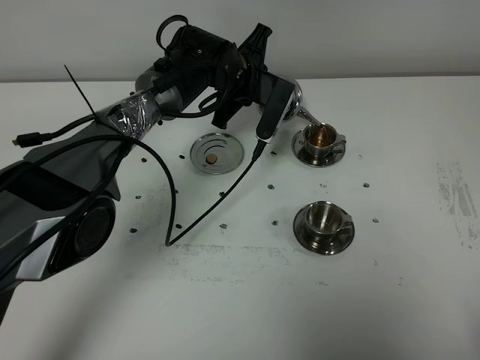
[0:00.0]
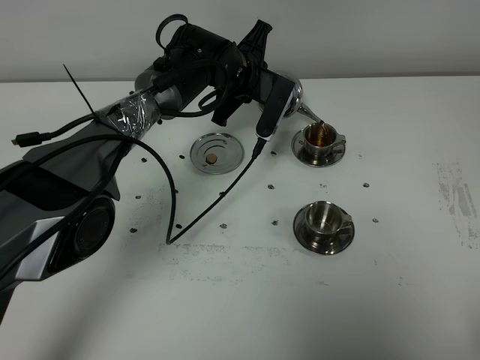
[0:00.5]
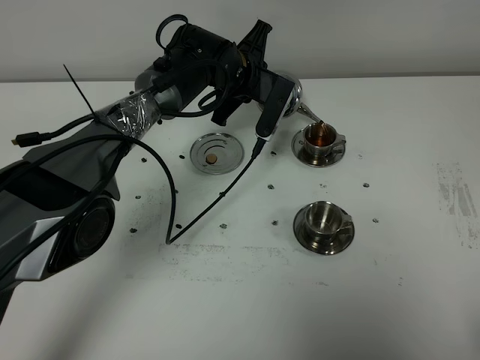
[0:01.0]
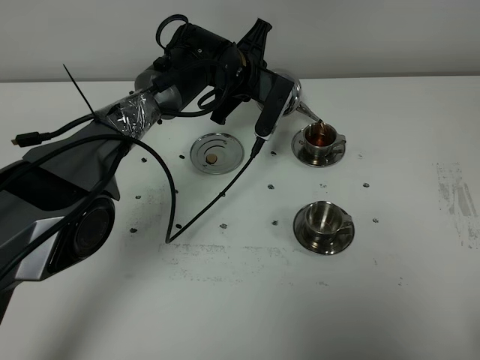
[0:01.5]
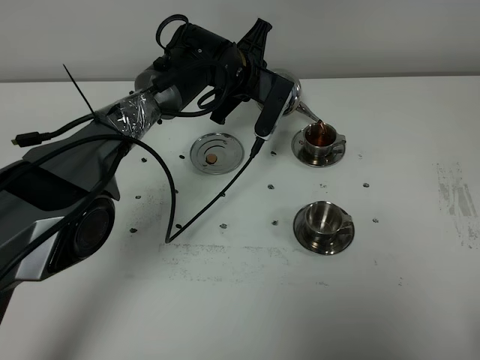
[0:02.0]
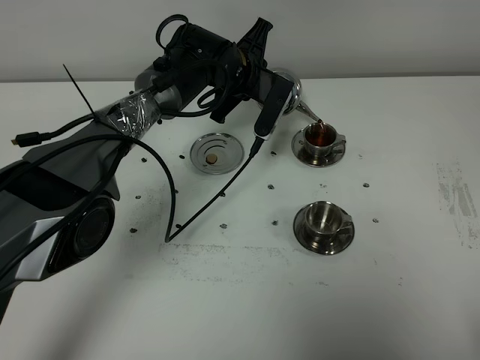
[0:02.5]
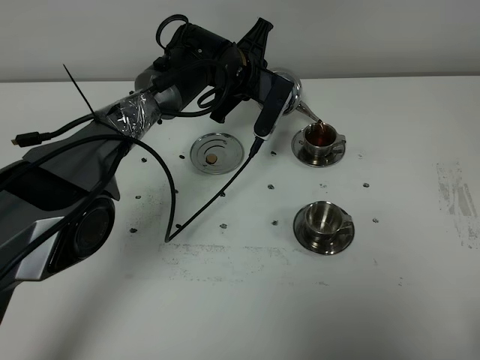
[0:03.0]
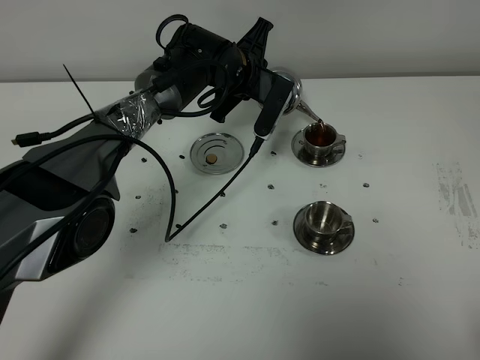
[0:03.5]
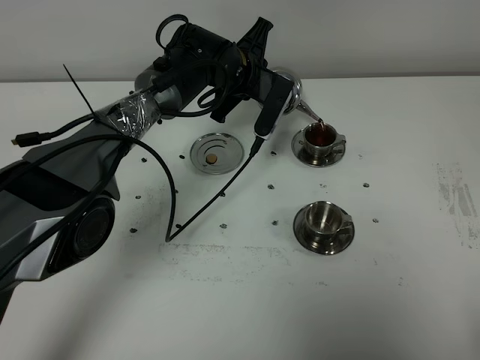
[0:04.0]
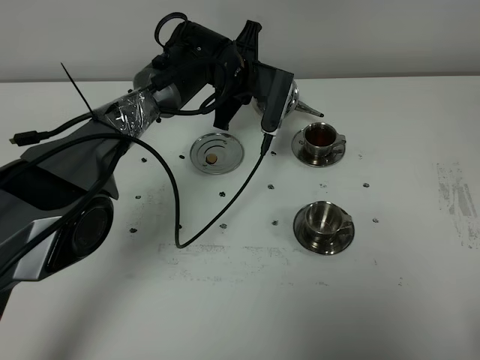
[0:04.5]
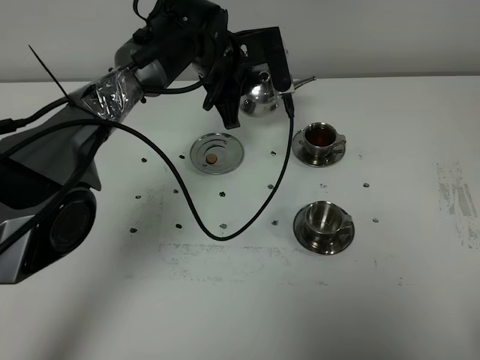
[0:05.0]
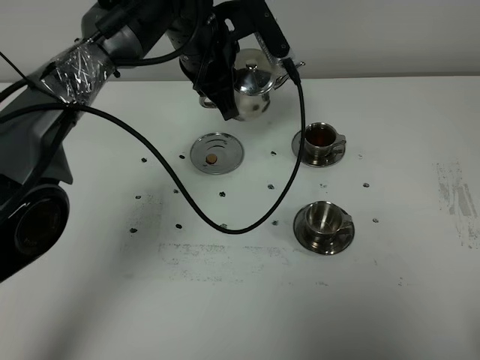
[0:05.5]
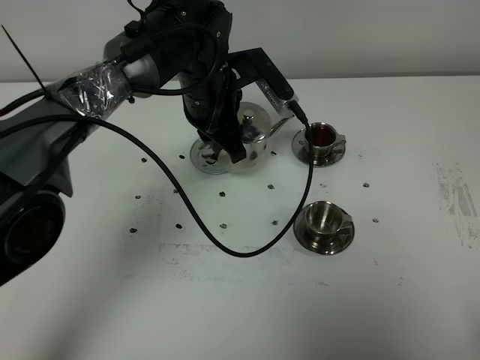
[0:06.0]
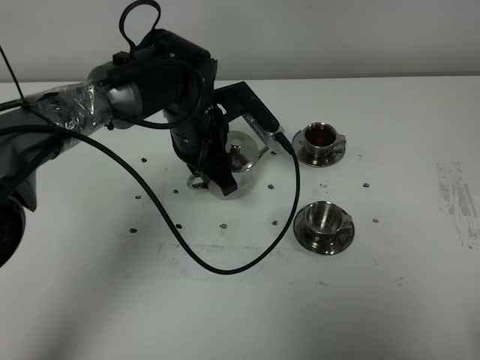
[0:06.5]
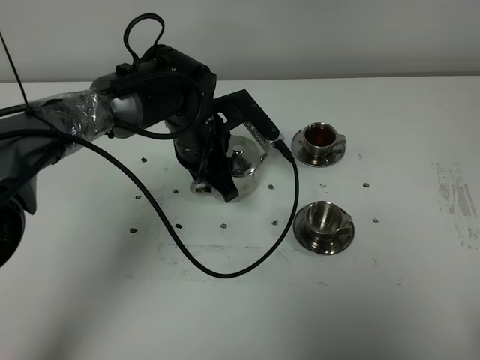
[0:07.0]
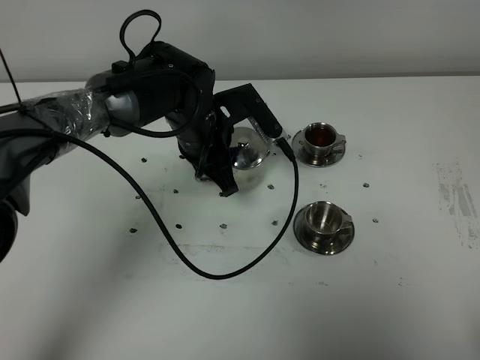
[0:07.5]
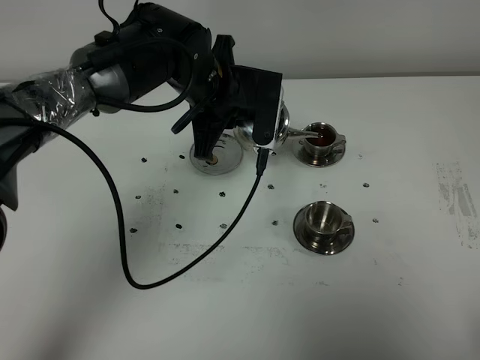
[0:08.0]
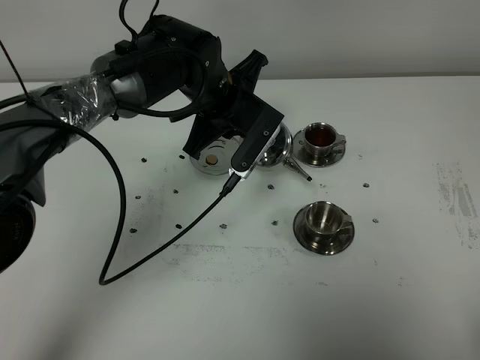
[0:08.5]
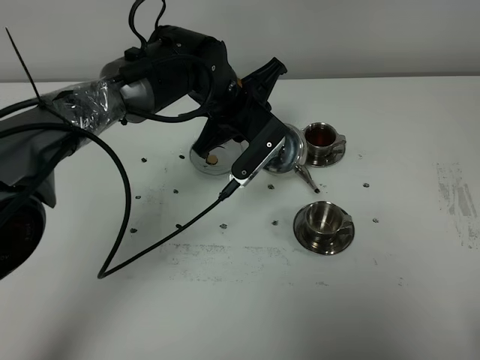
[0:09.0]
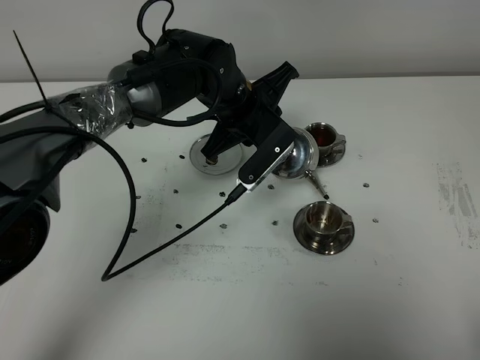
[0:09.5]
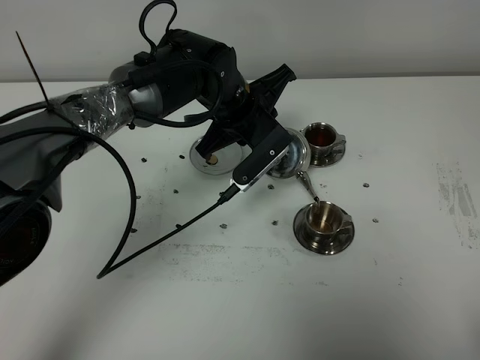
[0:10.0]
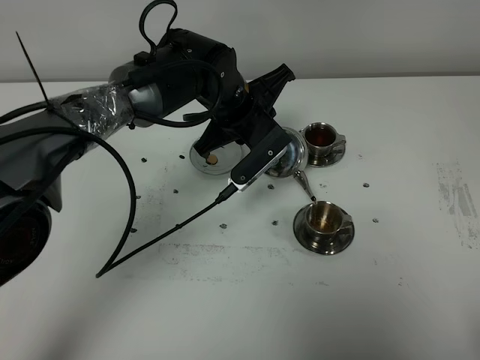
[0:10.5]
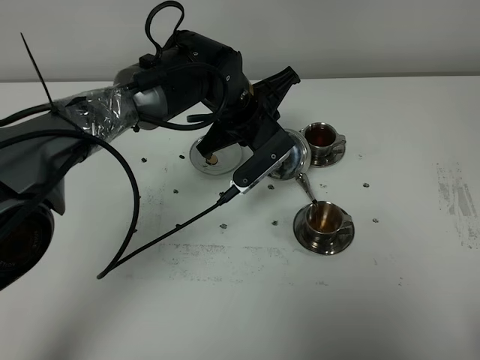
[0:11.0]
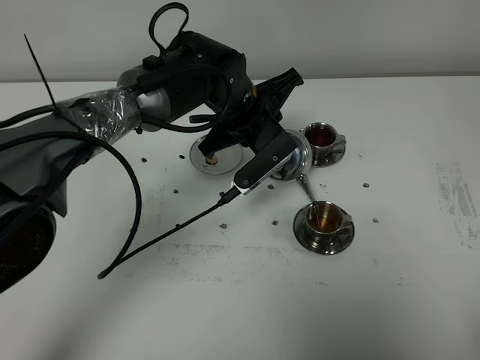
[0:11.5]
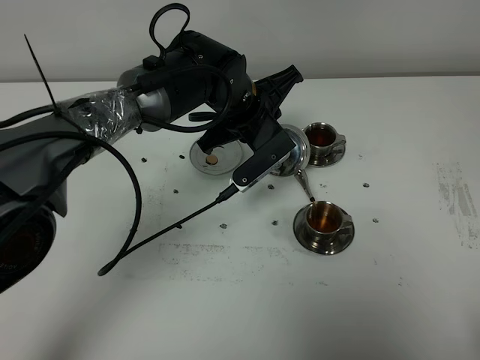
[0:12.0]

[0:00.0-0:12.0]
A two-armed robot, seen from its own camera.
Task of the whole recording: grasp the stainless steel teapot and pour the tea into the two stainless steel teacups one by one, put the stainless steel teapot back in its original place.
Step, 0:00.0 to 0:04.5: Pour tea into the teacup with the left gripper.
0:00.0 to 0:04.0: Both grippers stay about where they are.
0:04.0 to 0:06.0: The left gripper shifts some 10 cm backward.
0:10.0 to 0:12.0: There are only small adjustments of the grippers.

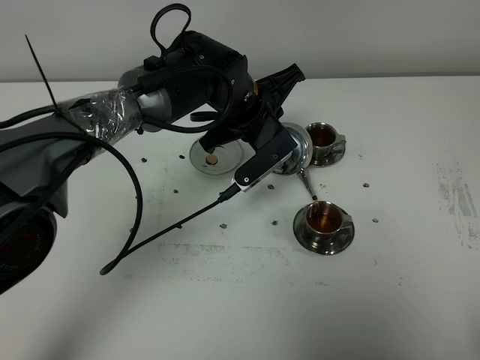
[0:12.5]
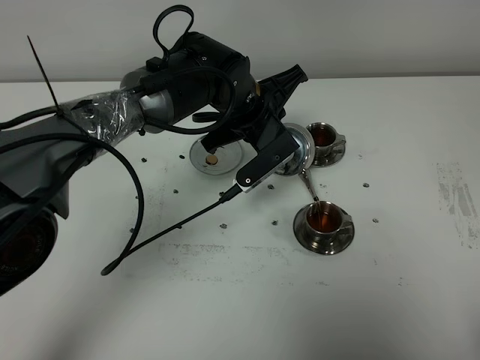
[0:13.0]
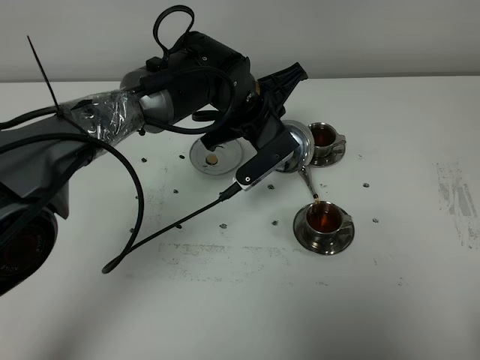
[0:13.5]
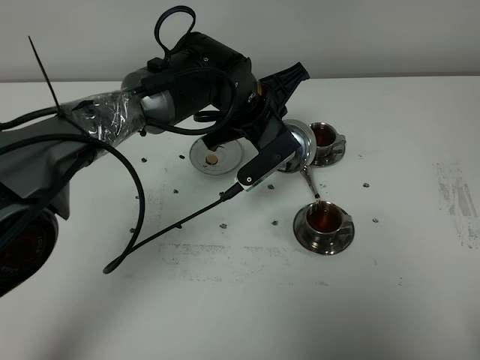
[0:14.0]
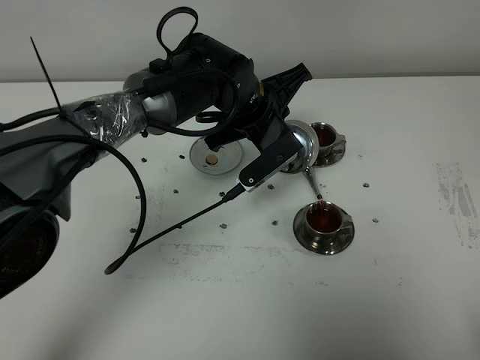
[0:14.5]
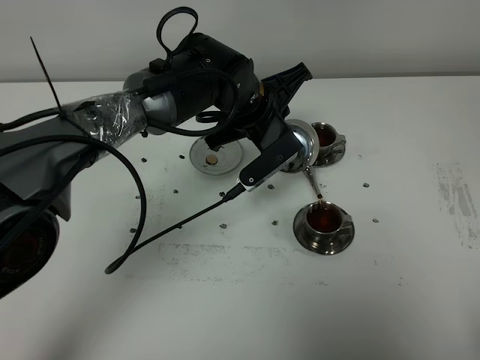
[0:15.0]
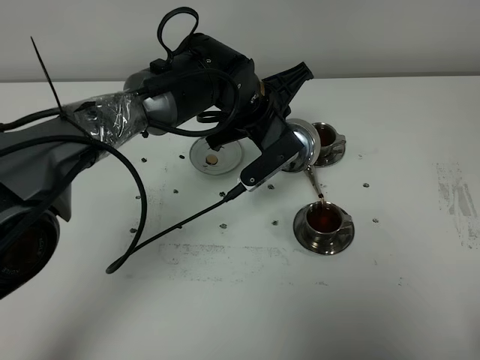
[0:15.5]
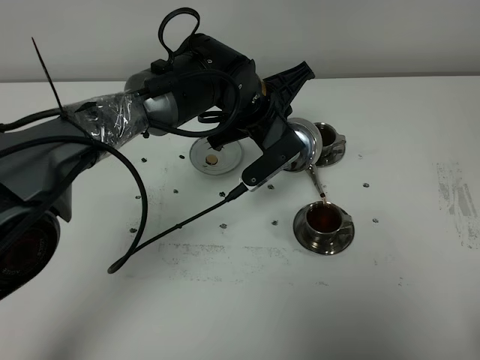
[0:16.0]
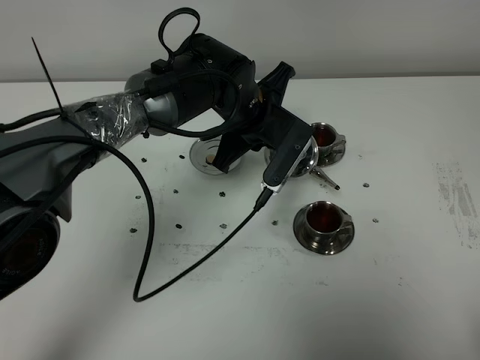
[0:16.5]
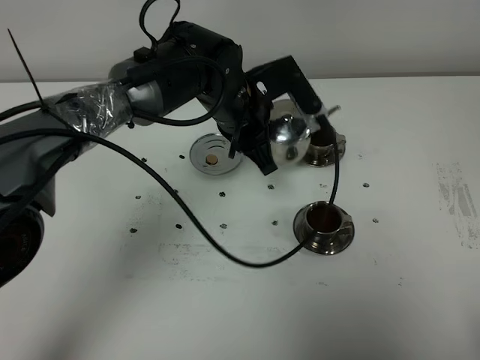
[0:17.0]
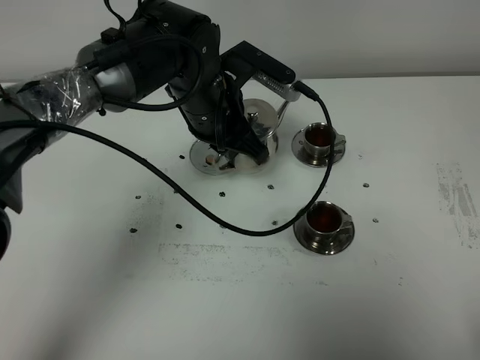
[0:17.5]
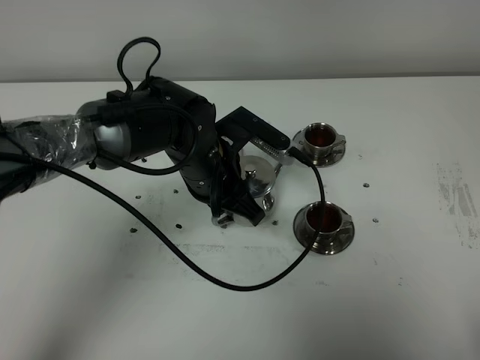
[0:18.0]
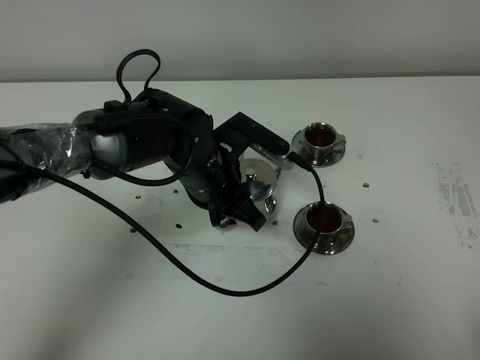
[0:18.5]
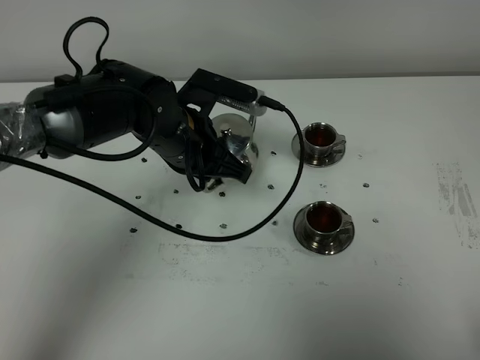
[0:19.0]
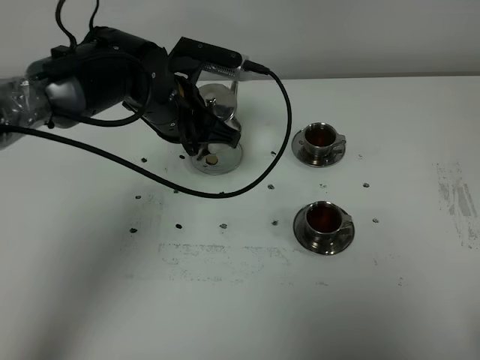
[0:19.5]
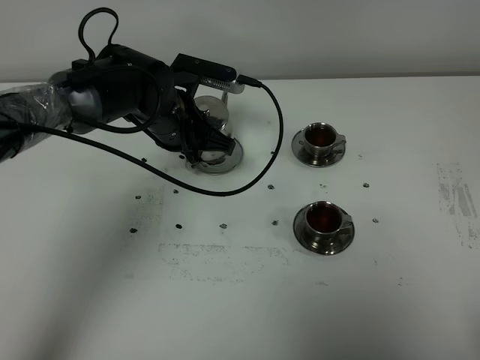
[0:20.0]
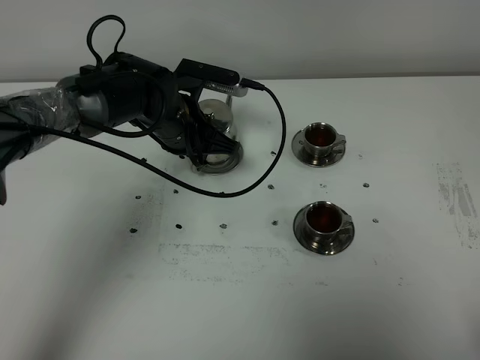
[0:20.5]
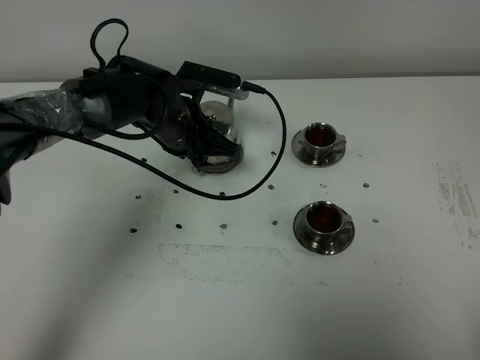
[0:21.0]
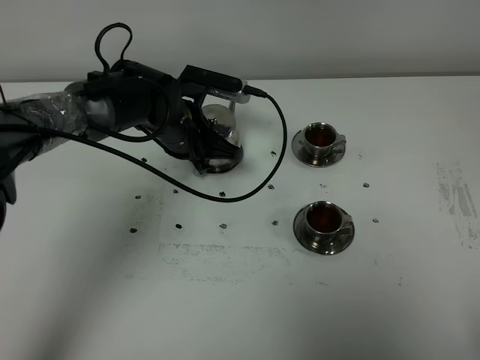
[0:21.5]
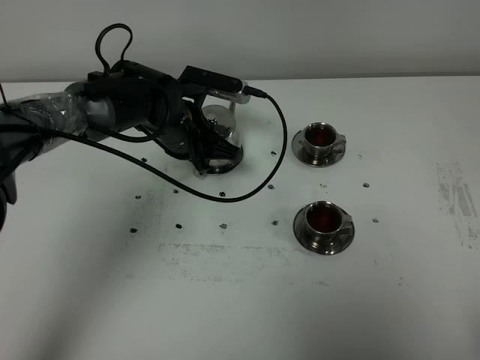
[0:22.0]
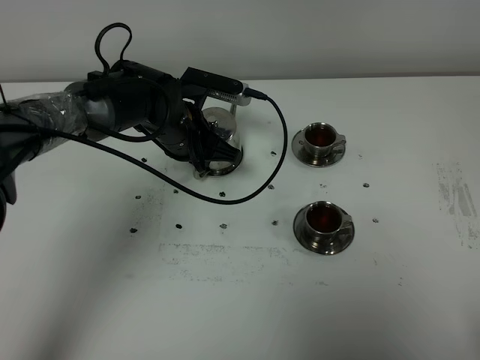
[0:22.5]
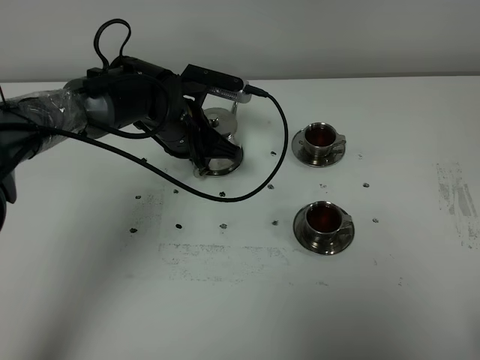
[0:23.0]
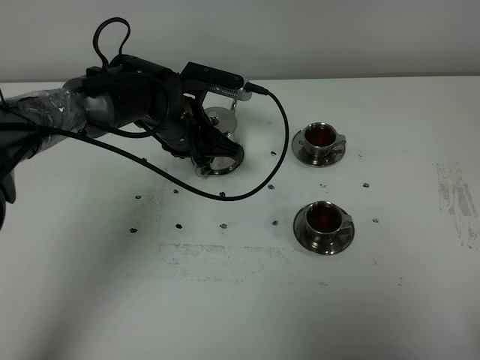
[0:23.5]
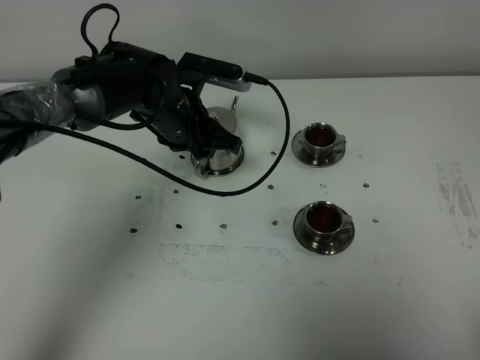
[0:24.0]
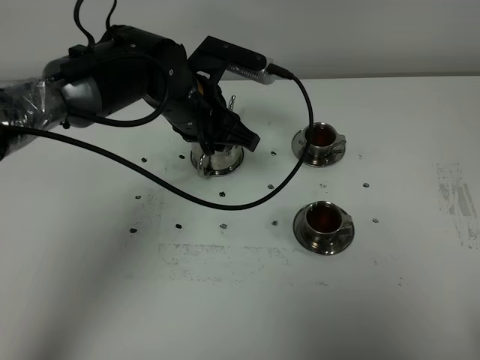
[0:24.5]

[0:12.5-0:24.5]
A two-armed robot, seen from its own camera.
Task of the whole recording: grasp the stainless steel teapot and pour the tea into the two stainless steel teacups one by one, put the stainless steel teapot back in its original place.
Step, 0:12.5 to 0:16.0: Pour tea into the teacup with the left gripper.
0:12.5 to 0:14.5: The two grippers keep their place.
0:16.5 to 0:18.5: The left gripper moves backward, approximately 5 cm.
0:18.5 to 0:20.5: The left gripper shifts approximately 10 cm forward.
0:20.5 to 0:22.5: Both grippers stay about where they are.
0:22.5 to 0:24.5: The left gripper moves upward, approximately 5 cm.

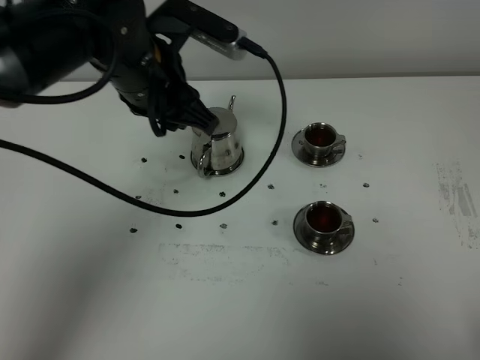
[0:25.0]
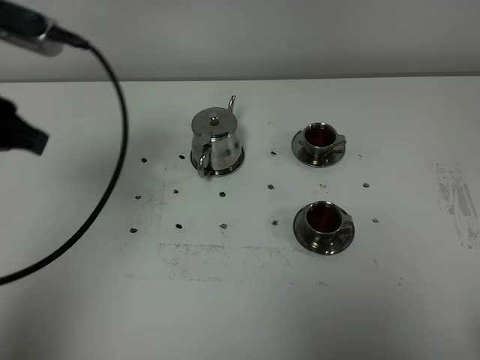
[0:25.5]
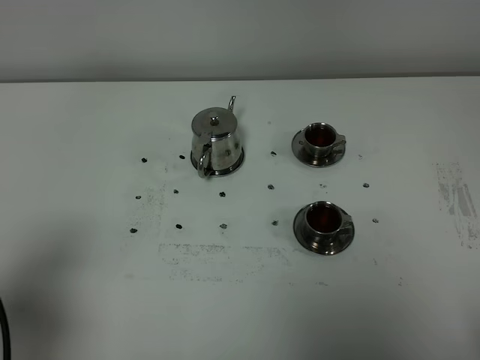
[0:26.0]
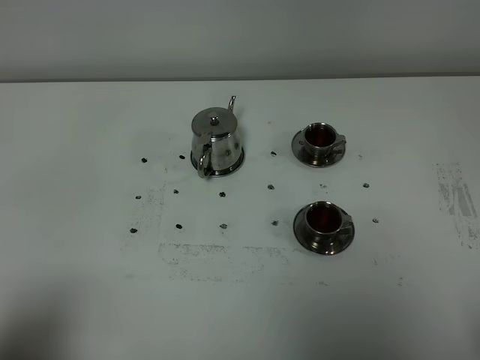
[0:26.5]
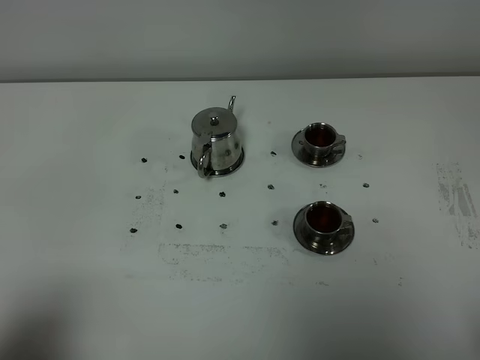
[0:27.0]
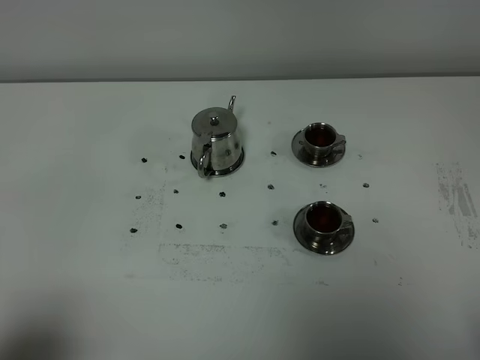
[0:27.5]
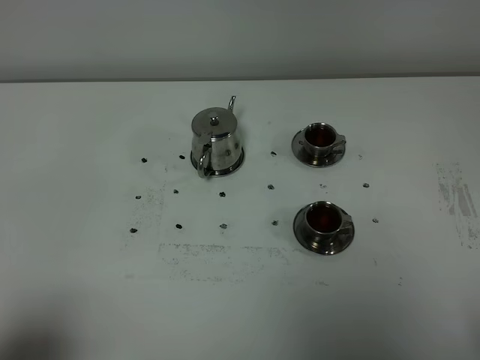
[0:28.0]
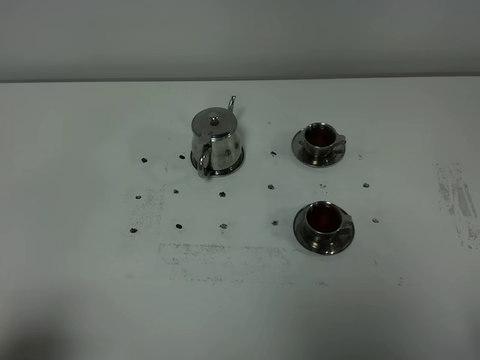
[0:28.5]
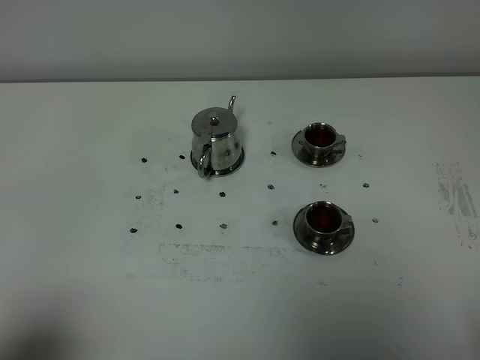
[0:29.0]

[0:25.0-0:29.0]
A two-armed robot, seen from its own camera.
Task of the whole recording: grasp the stainless steel teapot and pour the tea into the two stainless steel teacups one by one, put the stainless steel teapot back in its original place.
0:25.0 to 0:27.0: The left gripper travels backward and to the left by some 40 cm.
